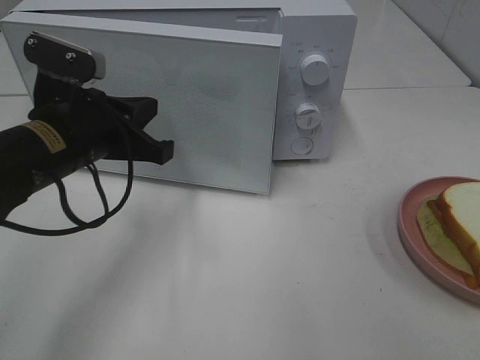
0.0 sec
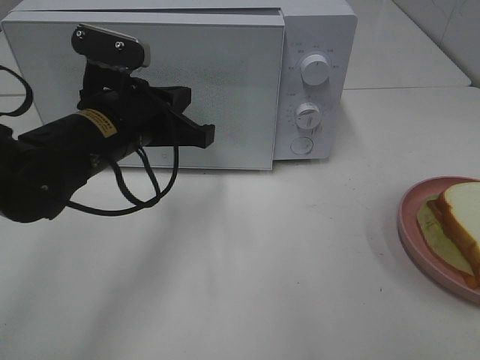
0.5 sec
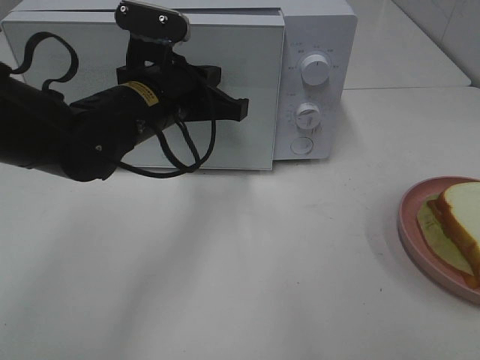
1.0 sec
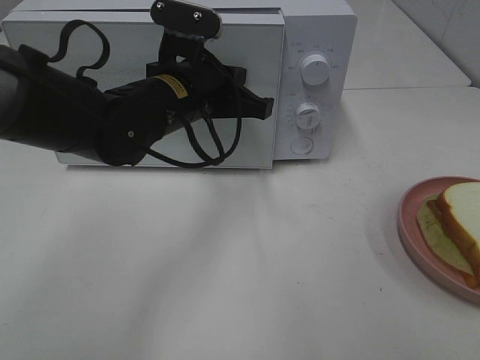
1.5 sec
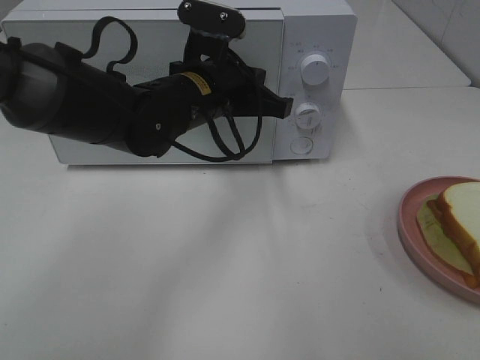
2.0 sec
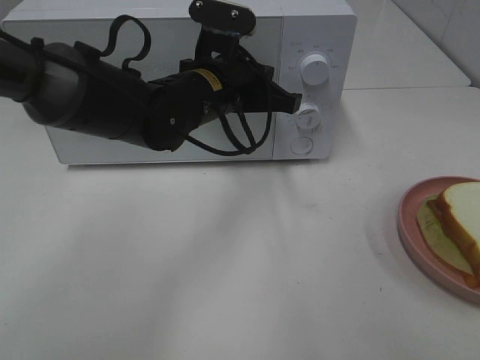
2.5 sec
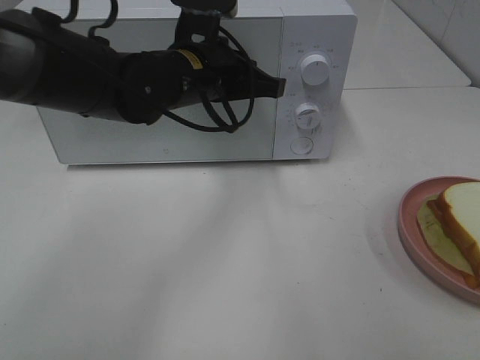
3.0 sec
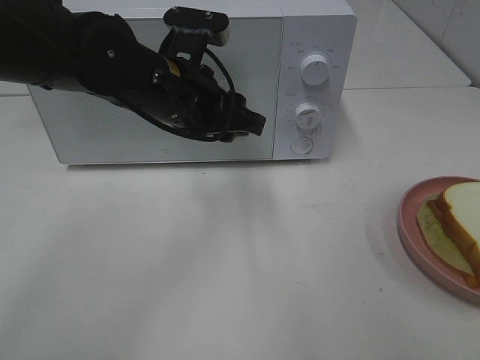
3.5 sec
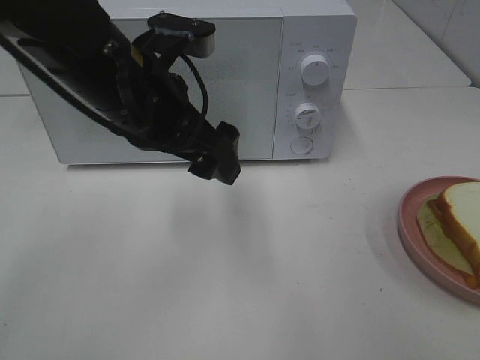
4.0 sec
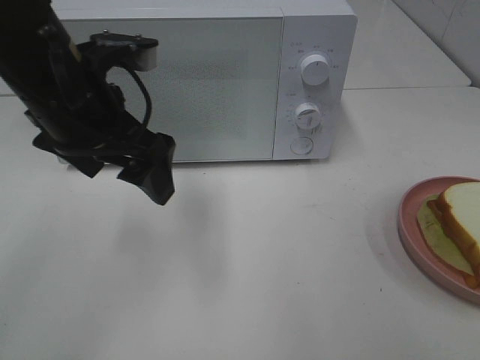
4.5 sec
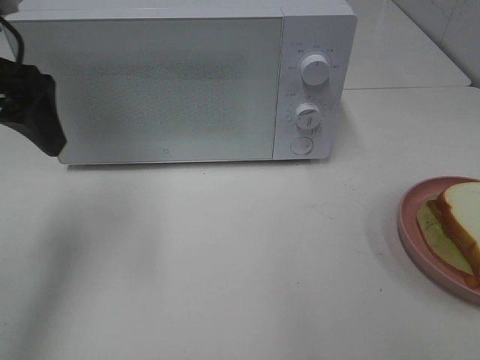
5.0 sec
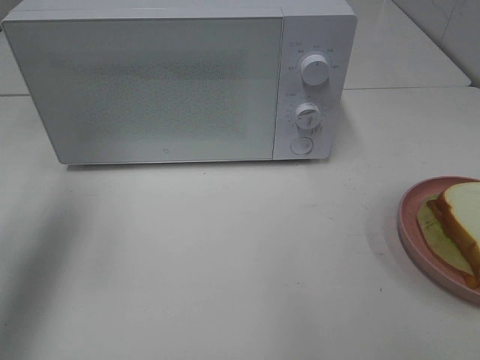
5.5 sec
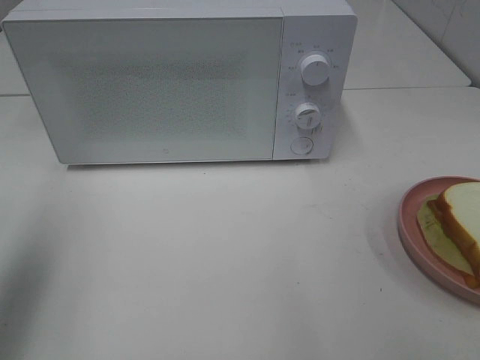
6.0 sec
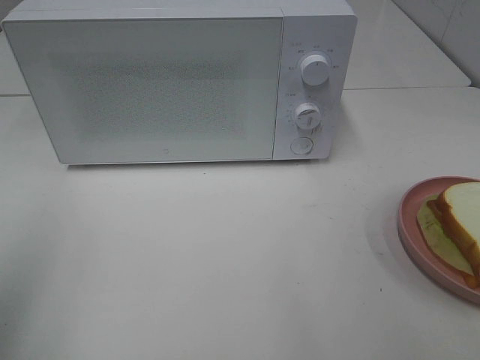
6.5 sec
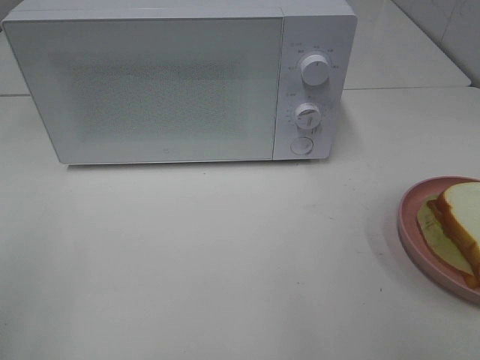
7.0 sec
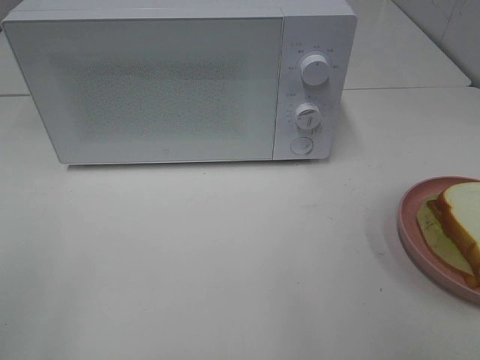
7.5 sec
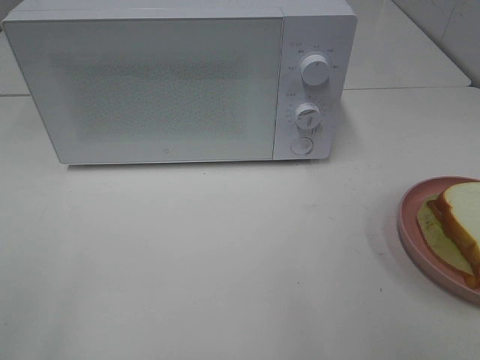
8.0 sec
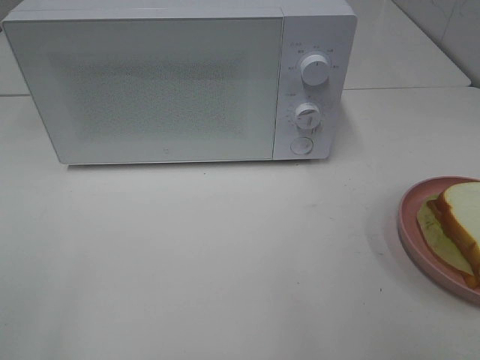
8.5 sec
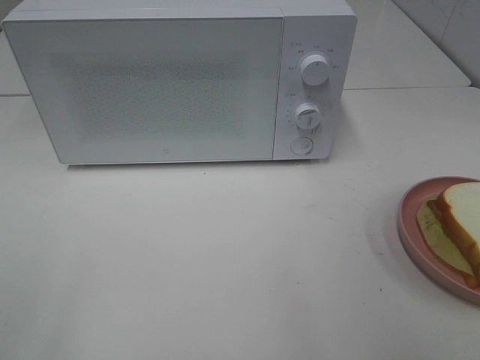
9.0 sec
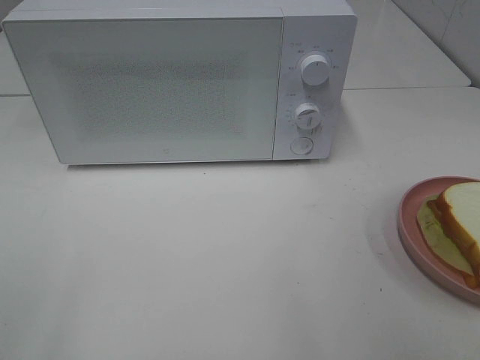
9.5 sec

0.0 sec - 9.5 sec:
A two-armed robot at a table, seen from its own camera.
Task of the whole recording: Heat Sandwich.
Step, 0.0 sec - 3.0 sec: Left hand: close the microwave door.
0.0 sec - 2.0 sec: The left gripper is displaced to the right and forward by roughly 15 cm.
2.0 sec - 4.0 sec: The left gripper travels backward and upward by about 10 cm, and opens up.
4.0 sec - 5.5 sec: The left gripper shifts roughly 20 cm to the left and upward.
5.5 sec - 7.5 sec: The left gripper moves backward, some 25 cm.

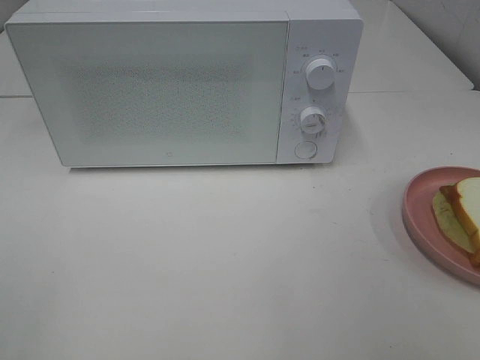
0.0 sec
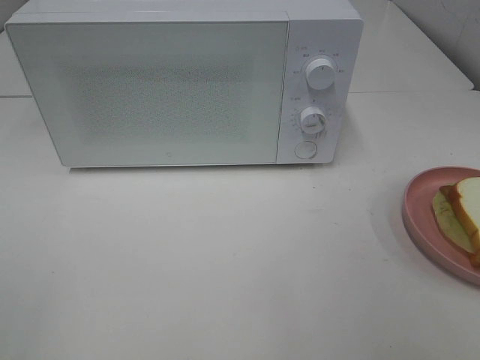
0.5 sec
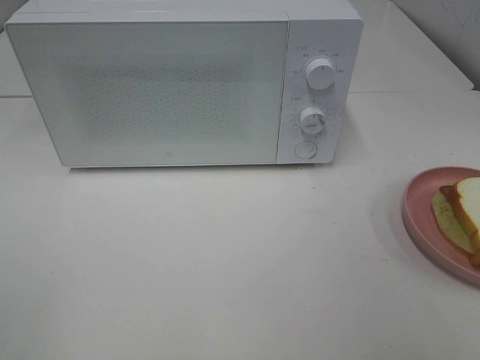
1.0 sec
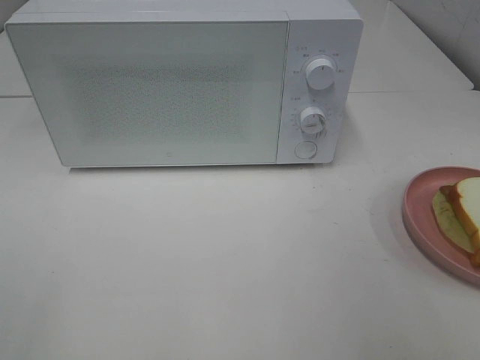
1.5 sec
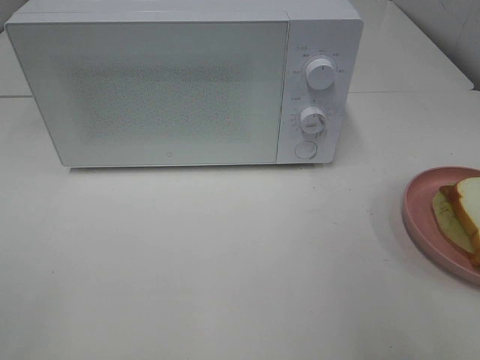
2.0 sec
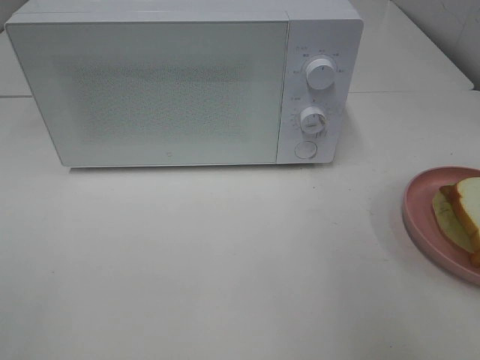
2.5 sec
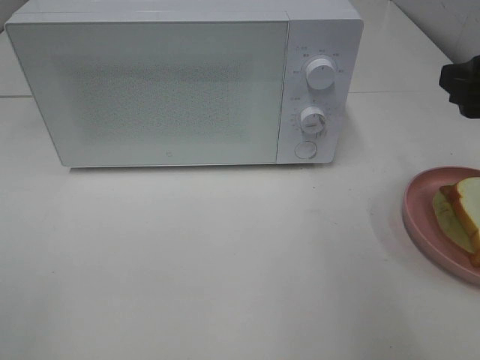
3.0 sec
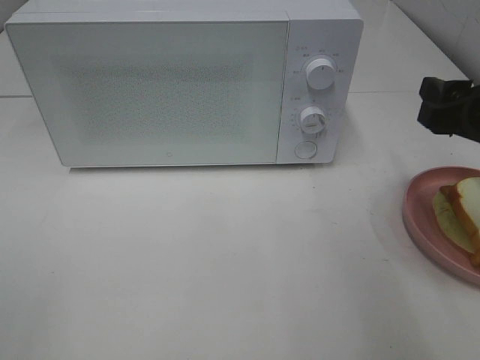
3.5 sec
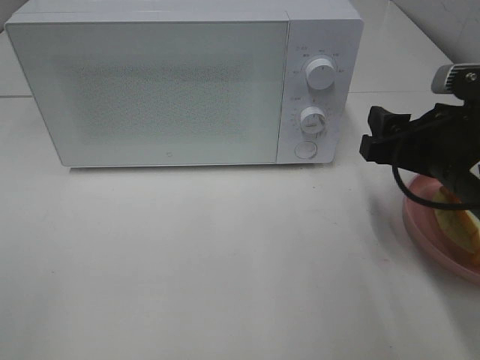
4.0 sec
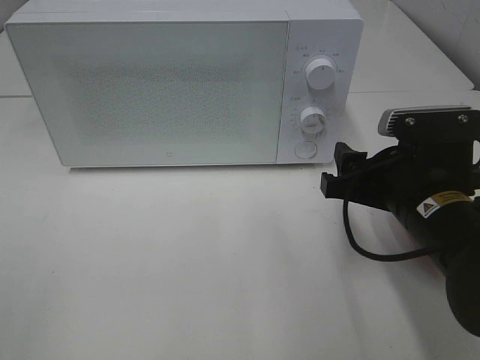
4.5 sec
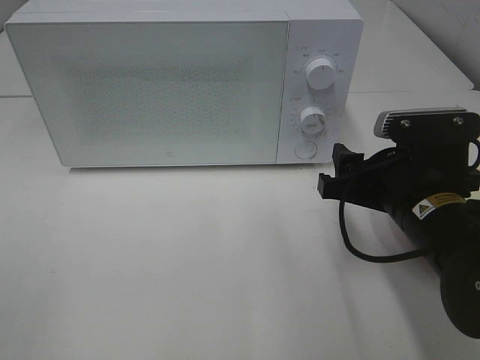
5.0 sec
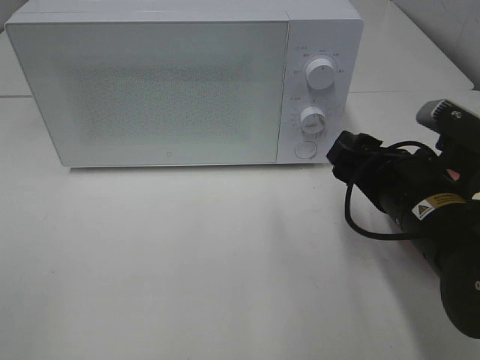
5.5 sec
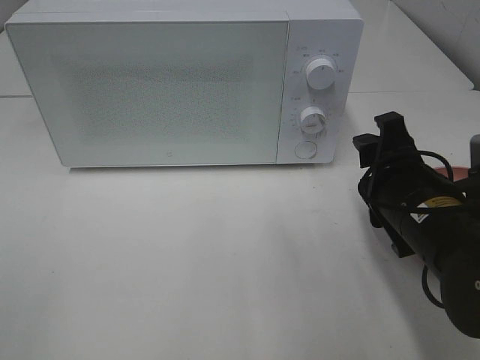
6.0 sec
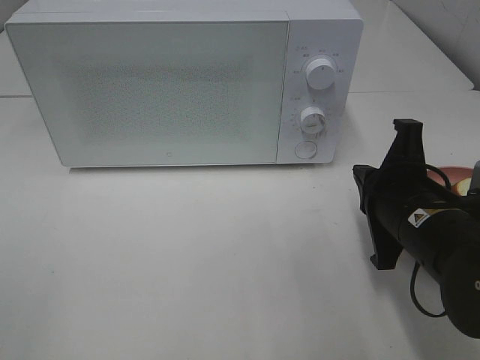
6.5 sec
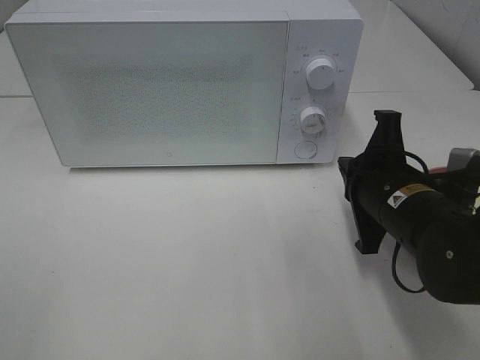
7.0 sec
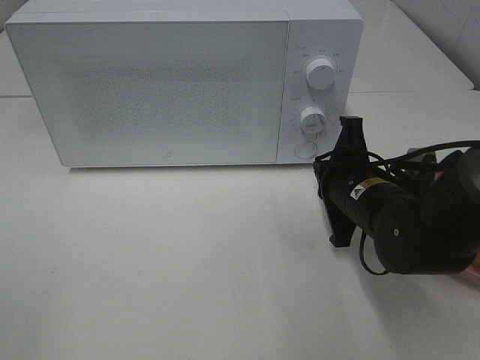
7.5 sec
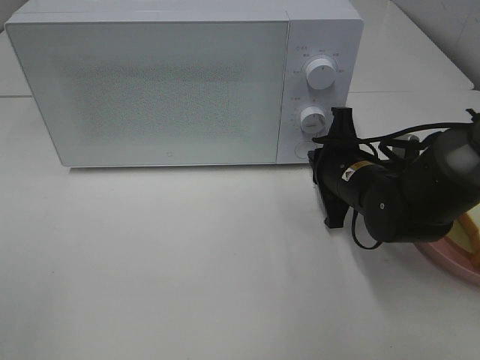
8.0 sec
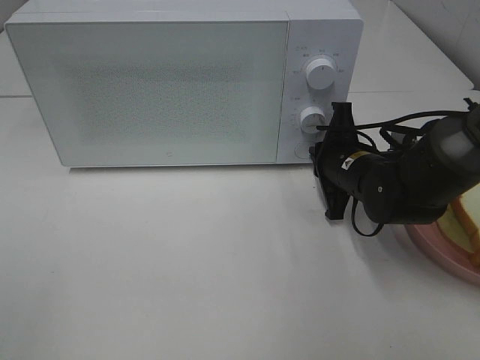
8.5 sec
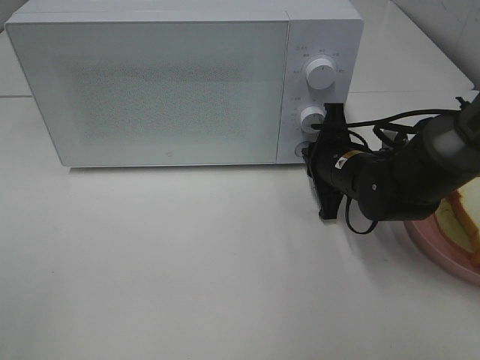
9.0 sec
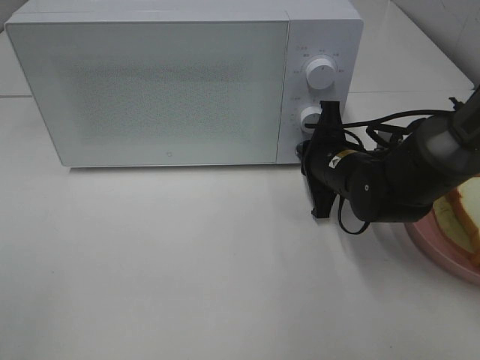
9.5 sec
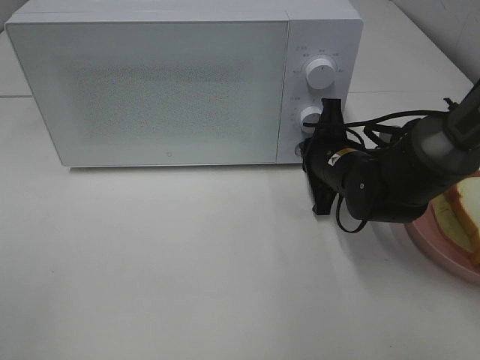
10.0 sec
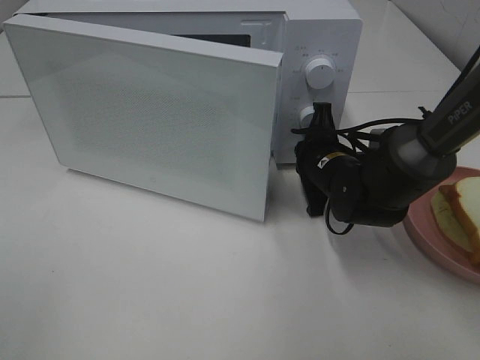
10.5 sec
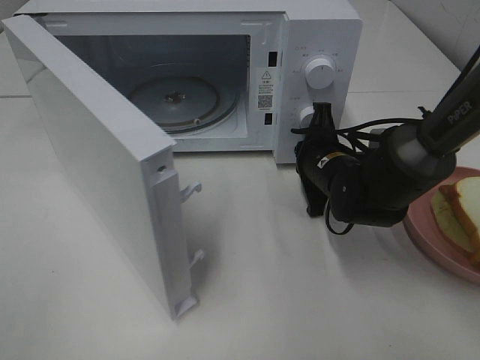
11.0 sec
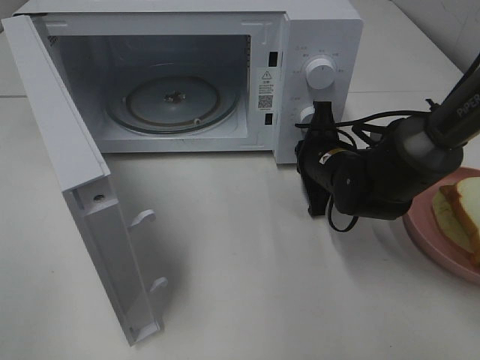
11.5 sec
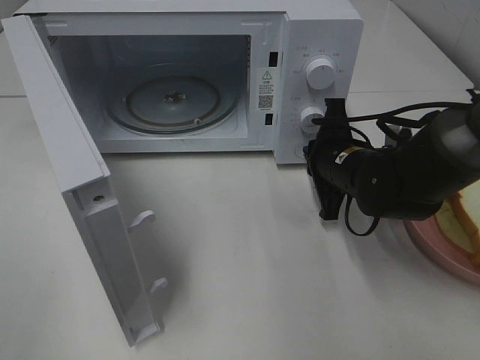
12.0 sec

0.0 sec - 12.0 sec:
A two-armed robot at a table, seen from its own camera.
Task of the whole recording: Heat Sandwich.
2.0 sec - 4.0 sec: The right gripper travels forward, downward and to the left by about 20 cm.
4.0 sec - 6.0 sec: The right gripper moves some 5 cm.
6.0 sec - 8.0 sec: The right gripper goes approximately 10 cm forward and downward, and closes.
8.0 sec - 10.0 sec: The grippers stay close to where they were, moving slightly.

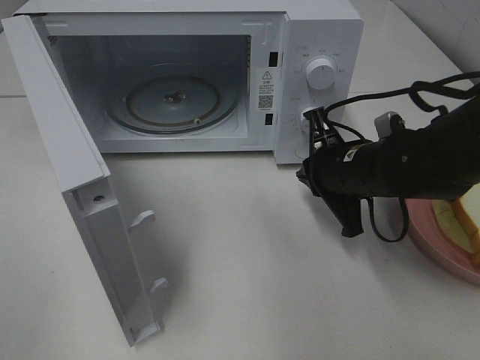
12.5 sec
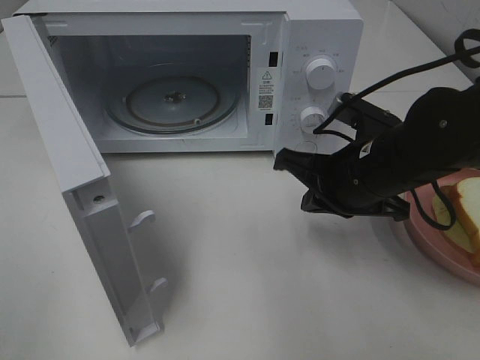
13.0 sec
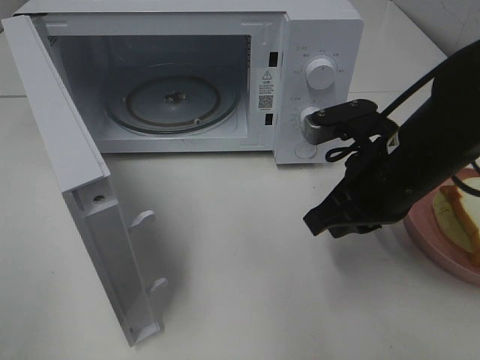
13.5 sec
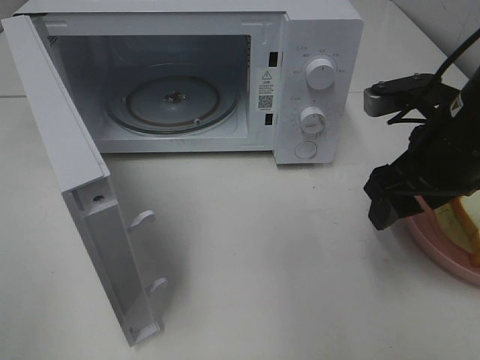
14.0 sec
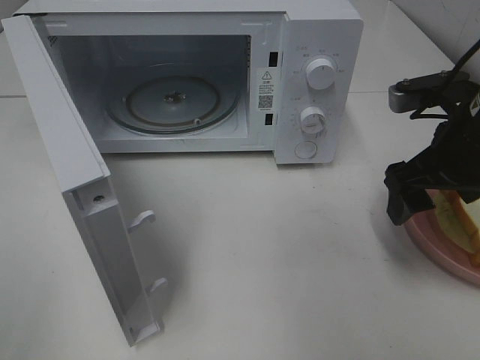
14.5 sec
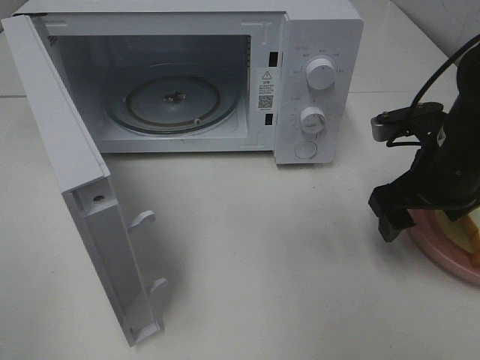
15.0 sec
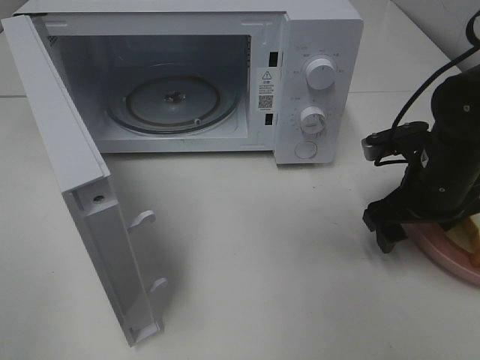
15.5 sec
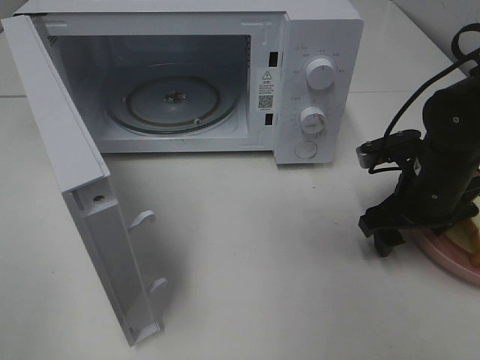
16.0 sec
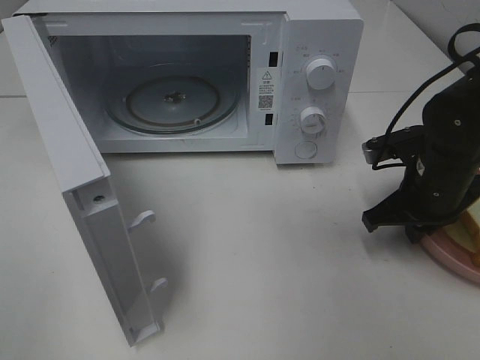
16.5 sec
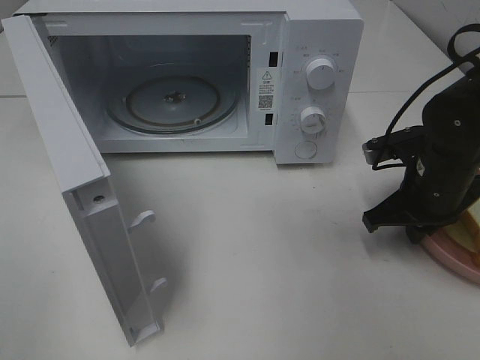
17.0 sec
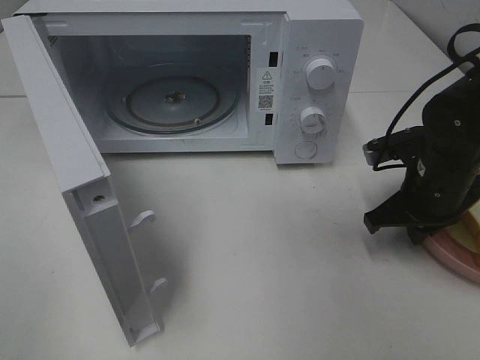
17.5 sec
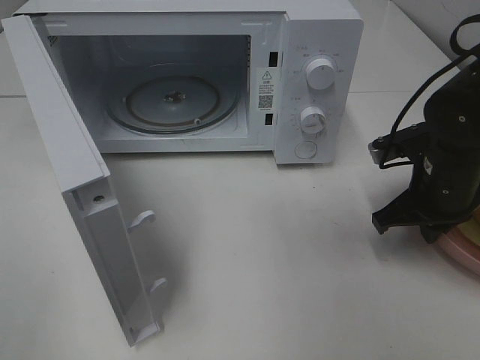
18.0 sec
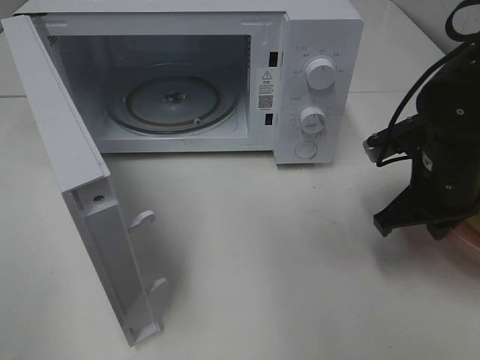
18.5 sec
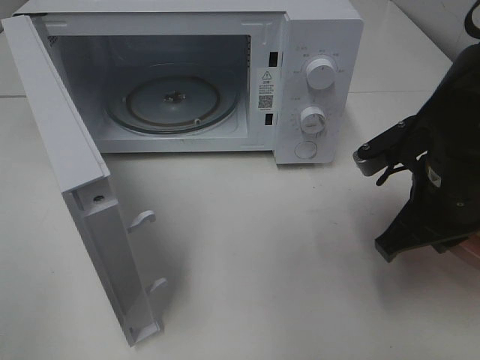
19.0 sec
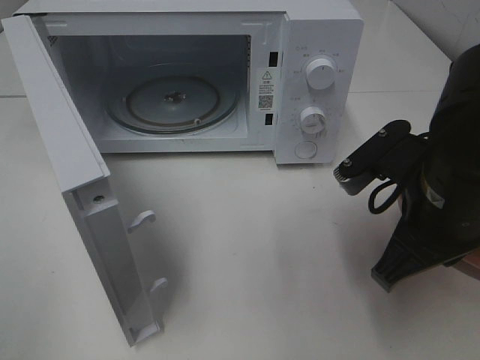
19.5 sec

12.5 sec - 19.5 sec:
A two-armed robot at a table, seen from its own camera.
Task of the whole recording: Heat Sandwich.
Step, 12.5 sec - 17.0 sec: Right hand: grab the plate with the sandwich.
12.5 sec - 14.5 sec: The right gripper heads upward and to the right, covering about 10 cm, and opens up.
14.5 sec - 16.0 sec: The right gripper goes some 10 cm downward.
16.0 sec - 17.5 sec: The right gripper closes.
17.5 sec - 19.5 sec: The right gripper heads backward, upward and to the left, covering some 15 cm.
